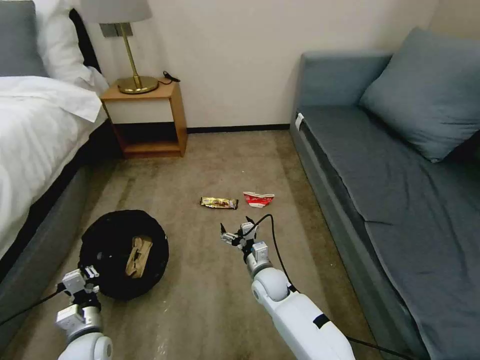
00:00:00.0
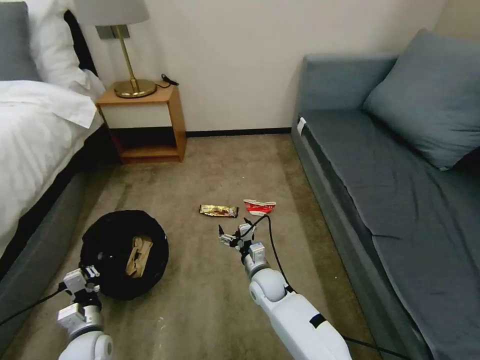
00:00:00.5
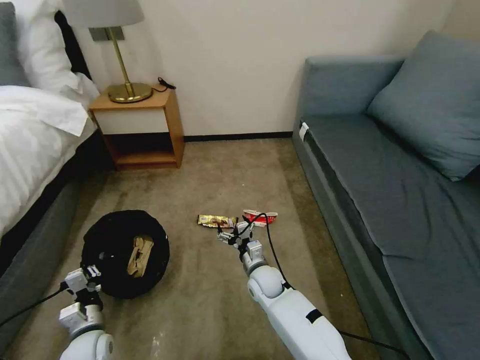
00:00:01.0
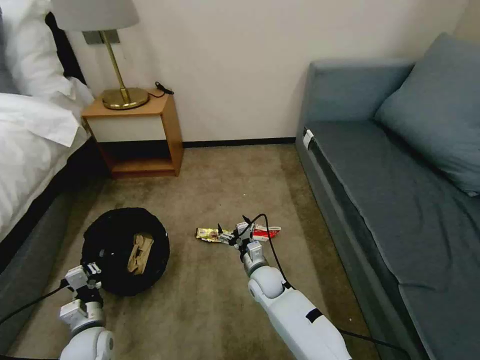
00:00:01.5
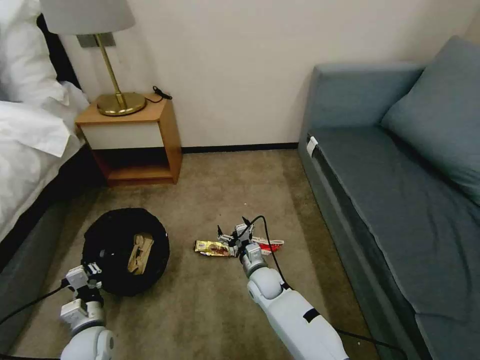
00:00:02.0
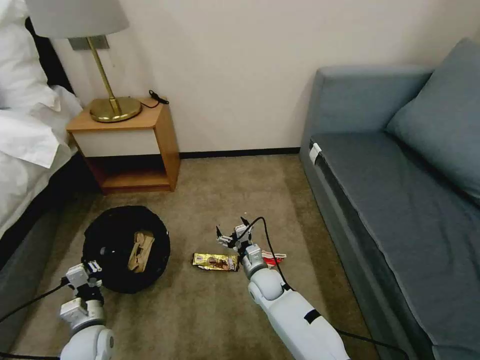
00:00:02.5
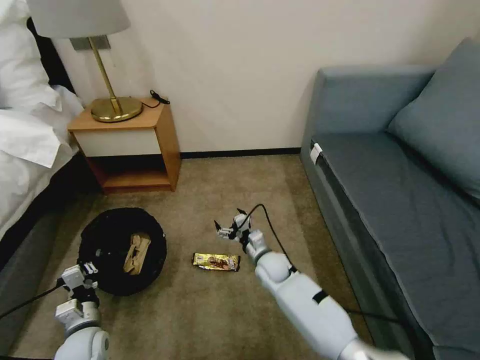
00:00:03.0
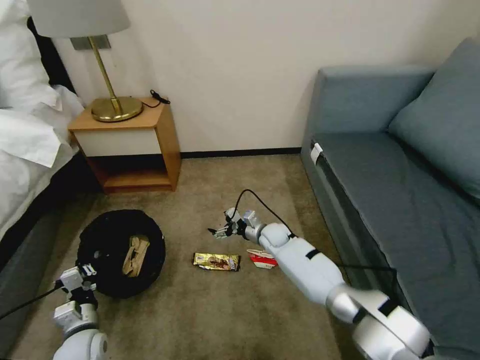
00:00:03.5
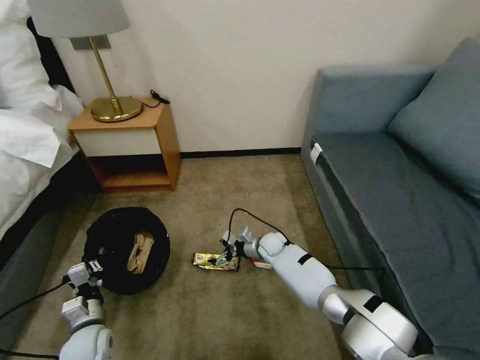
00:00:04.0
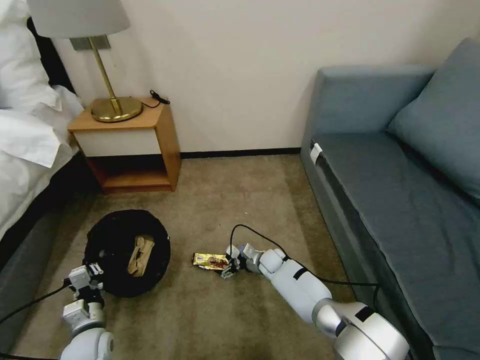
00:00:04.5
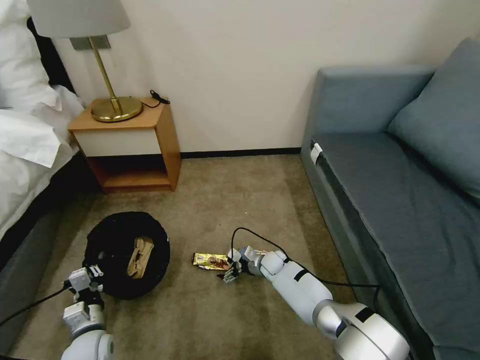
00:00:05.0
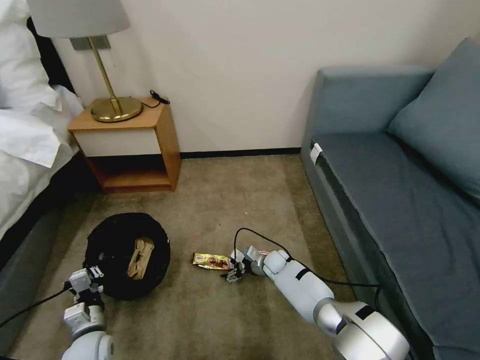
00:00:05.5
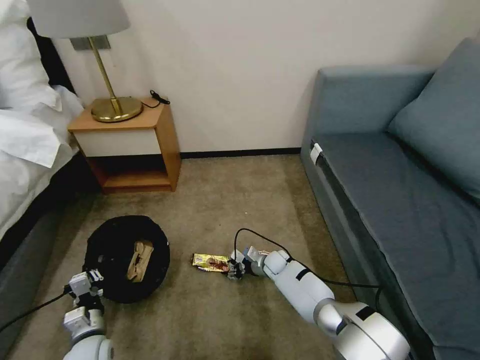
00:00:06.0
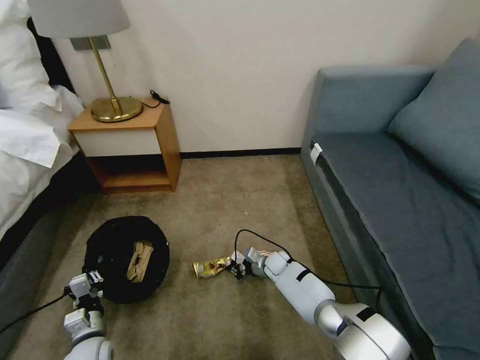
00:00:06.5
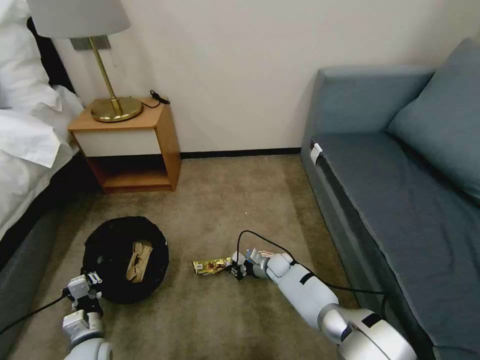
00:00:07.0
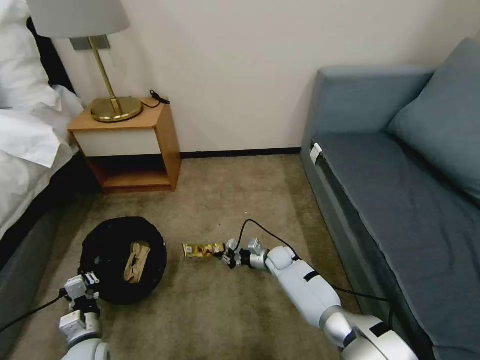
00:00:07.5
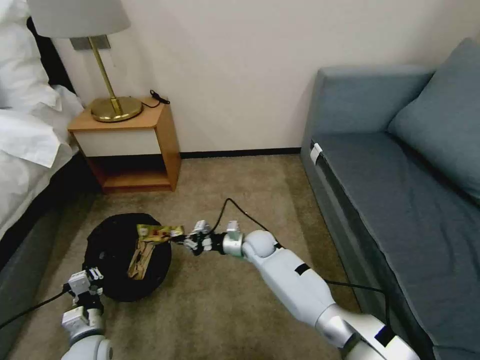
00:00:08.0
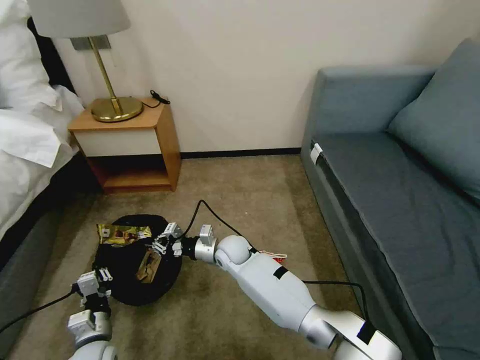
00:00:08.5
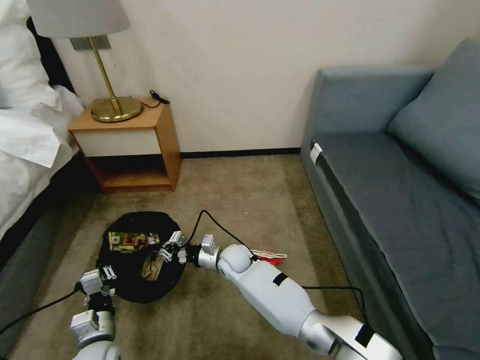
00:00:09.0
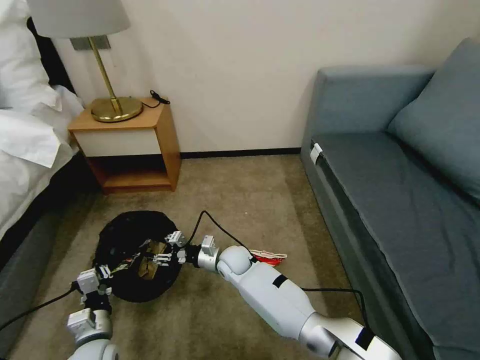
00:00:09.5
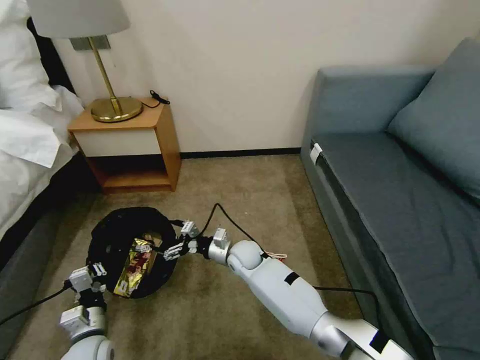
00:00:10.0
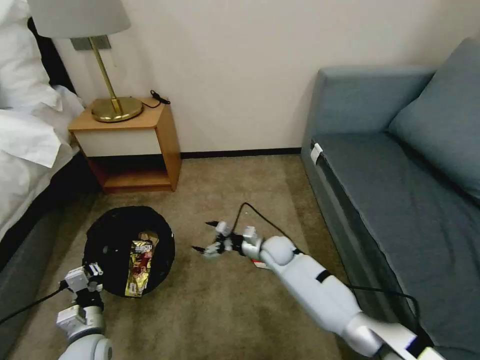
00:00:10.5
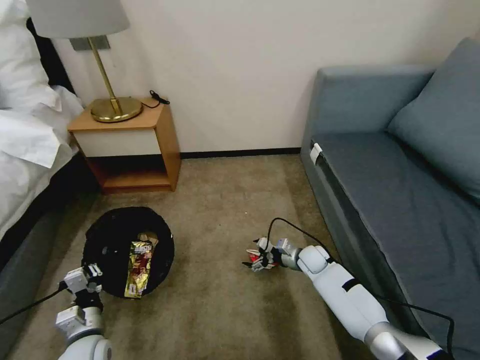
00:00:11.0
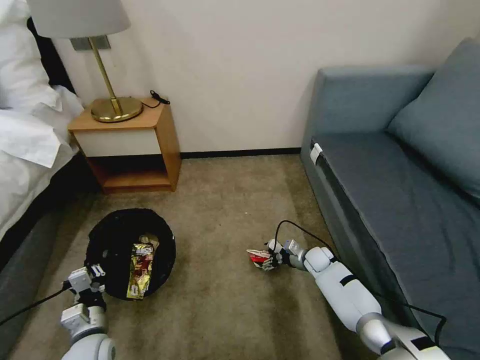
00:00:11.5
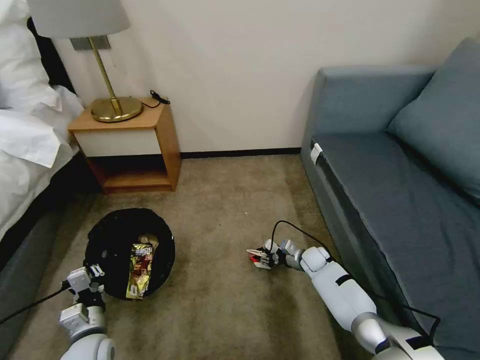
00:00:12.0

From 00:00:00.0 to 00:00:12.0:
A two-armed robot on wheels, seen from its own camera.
Task of the whole recording: Pick up the trash bin, then pick up the garbage on the floor and place it into the trash bin.
From 00:00:02.0 to 00:00:04.0: The right gripper is displaced forward by roughly 10 cm.
From 00:00:04.0 to 00:00:06.0: The right gripper moves downward, roughly 5 cm, and closes up.
From 00:00:06.0 to 00:00:08.0: The right gripper travels upward and to the left by some 15 cm, and closes its fingers.
From 00:00:08.0 to 00:00:10.0: The right gripper opens its fingers.
From 00:00:10.0 to 00:00:12.0: The right gripper goes approximately 25 cm to the right and downward, and closes up.

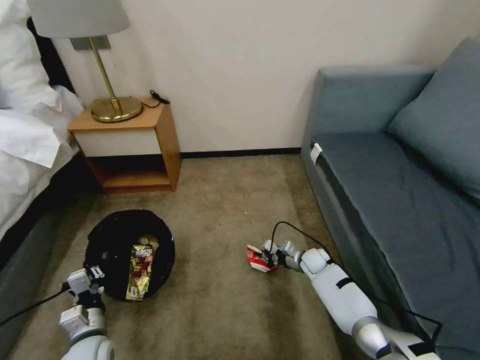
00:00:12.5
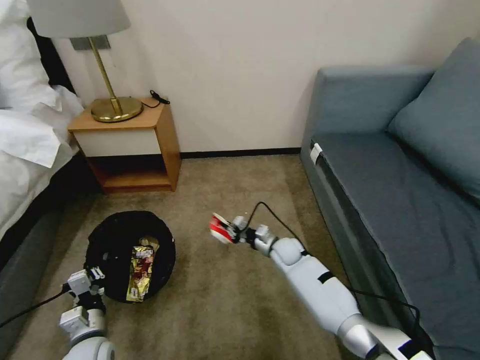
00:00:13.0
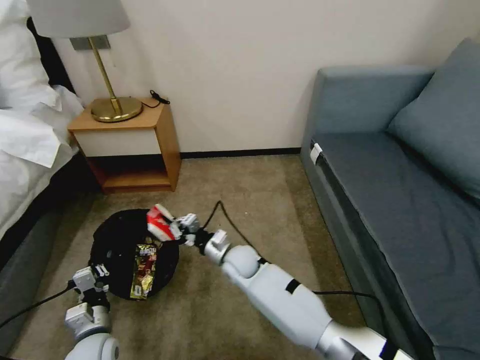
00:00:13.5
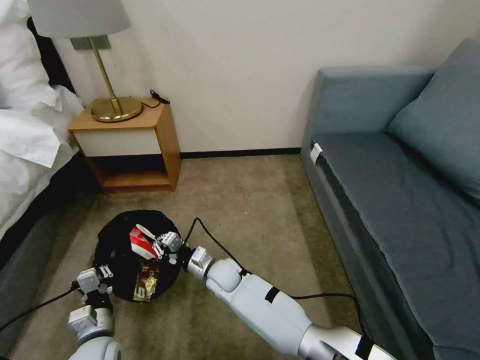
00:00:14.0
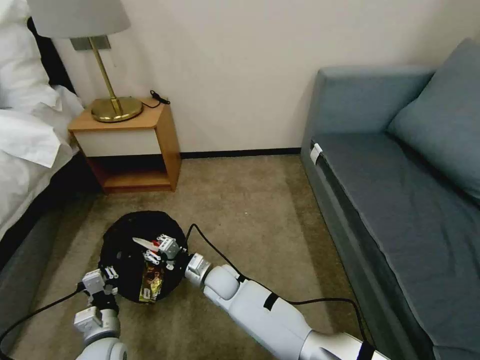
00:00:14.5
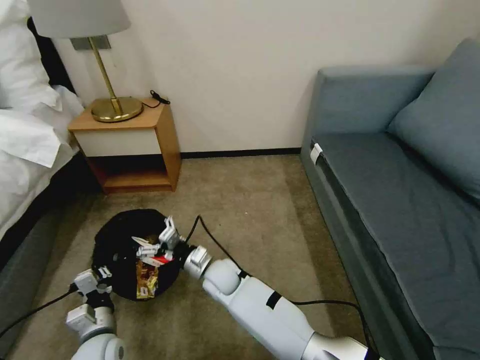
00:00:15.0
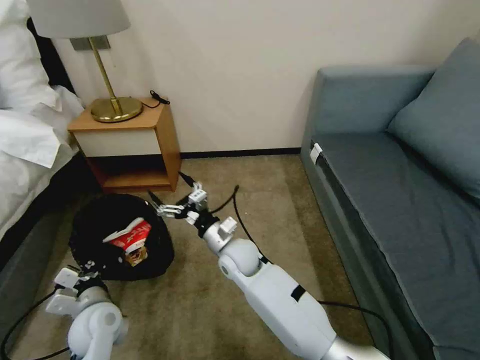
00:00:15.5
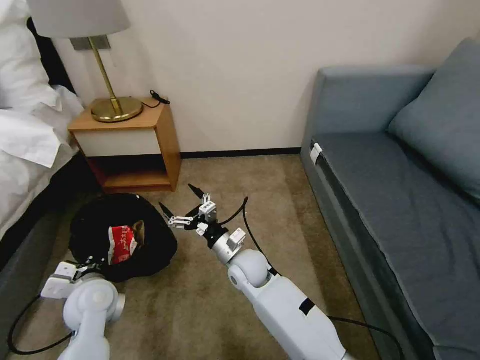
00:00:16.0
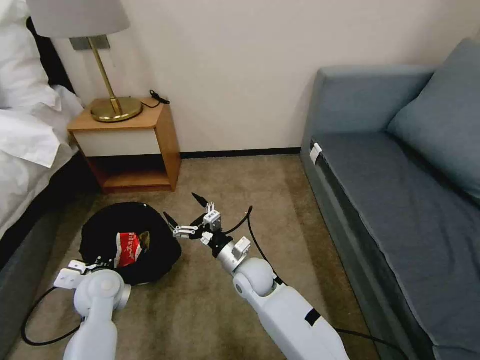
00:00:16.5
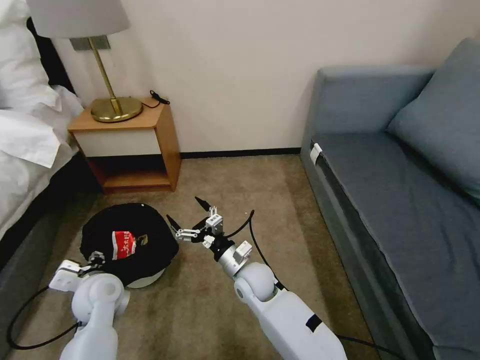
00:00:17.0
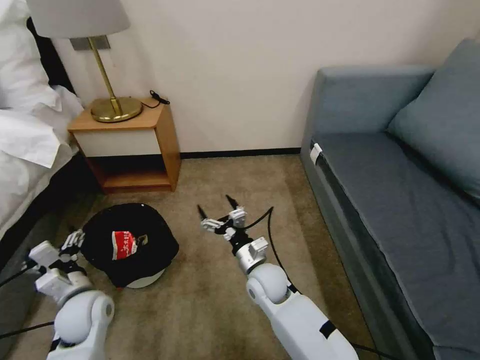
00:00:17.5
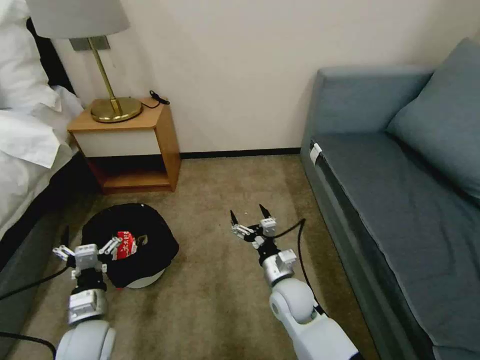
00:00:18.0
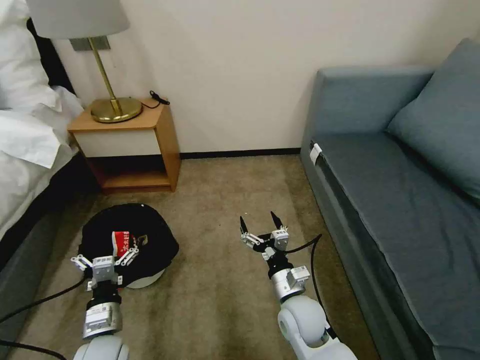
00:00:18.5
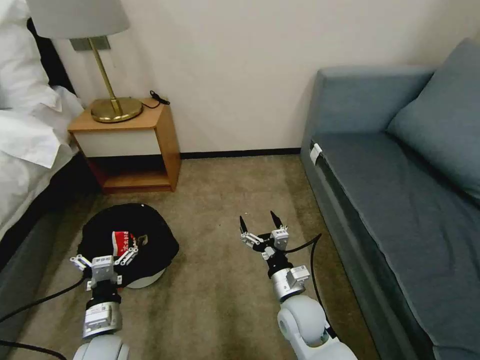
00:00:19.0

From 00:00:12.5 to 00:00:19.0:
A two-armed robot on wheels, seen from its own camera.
Task of the whole recording: Pick up the trash bin, then pick up the garbage on the floor and place it into the trash bin.
From 00:00:12.5 to 00:00:14.5: The right gripper goes roughly 30 cm to the left, and opens its fingers.
From 00:00:14.5 to 00:00:17.0: The right gripper is displaced to the right and upward by roughly 10 cm, and opens. The left gripper heads forward and upward, covering approximately 15 cm, and opens up.
From 00:00:17.0 to 00:00:19.0: The left gripper travels backward by some 10 cm, and opens up. Meanwhile the right gripper moves to the right and backward, approximately 15 cm.

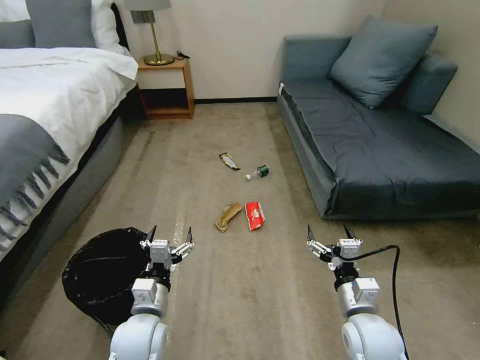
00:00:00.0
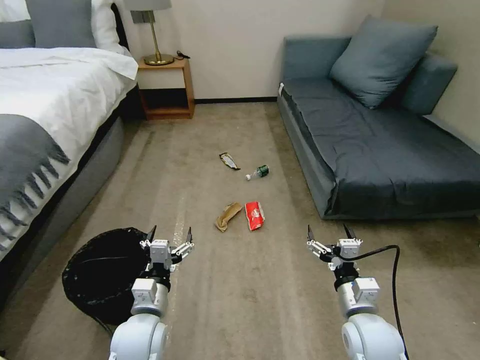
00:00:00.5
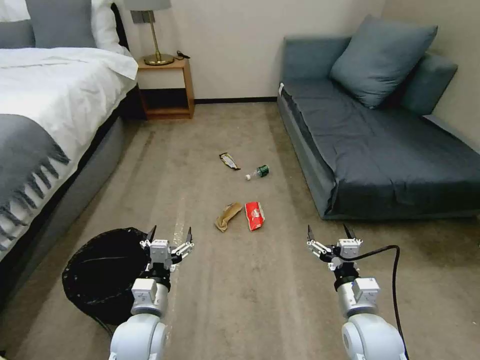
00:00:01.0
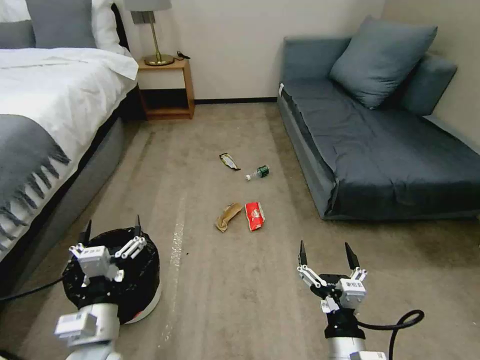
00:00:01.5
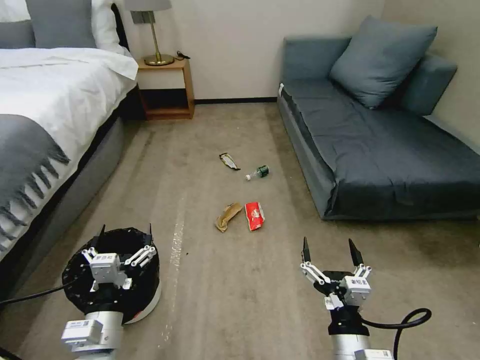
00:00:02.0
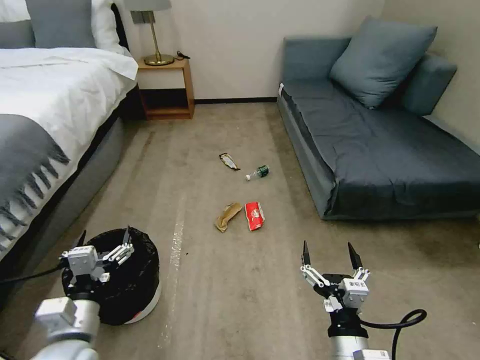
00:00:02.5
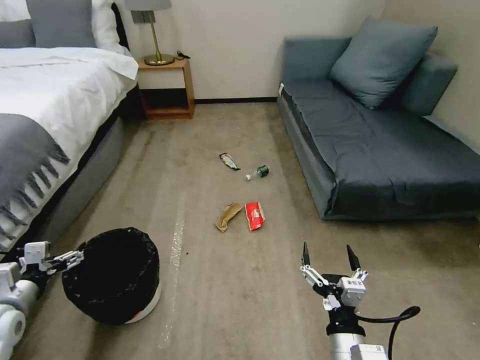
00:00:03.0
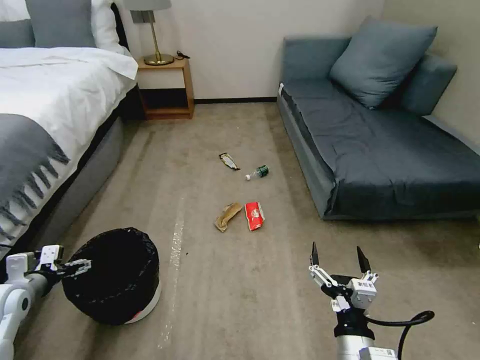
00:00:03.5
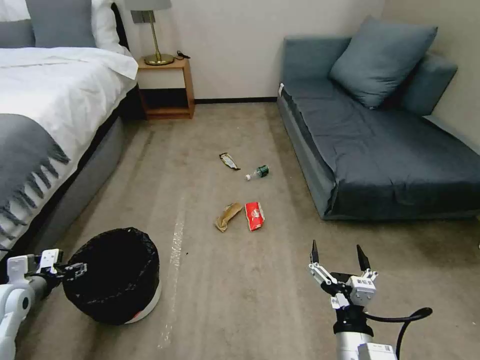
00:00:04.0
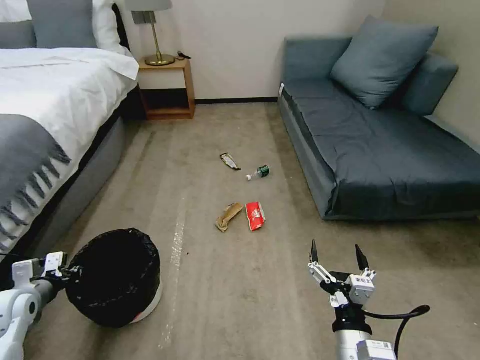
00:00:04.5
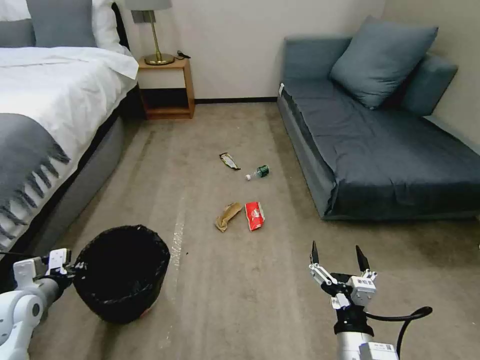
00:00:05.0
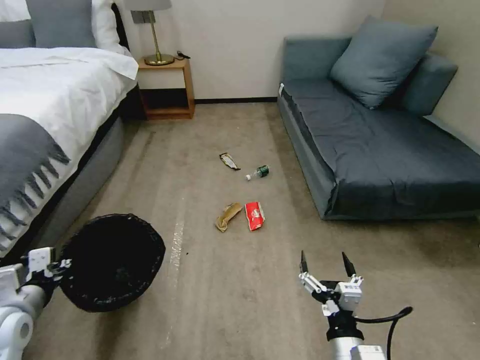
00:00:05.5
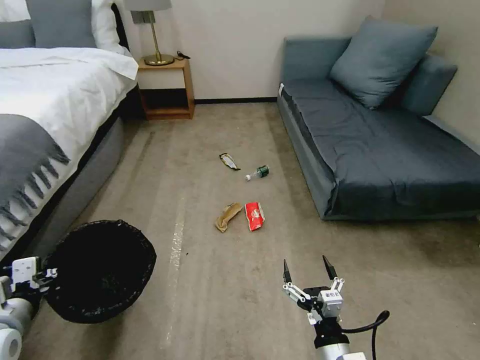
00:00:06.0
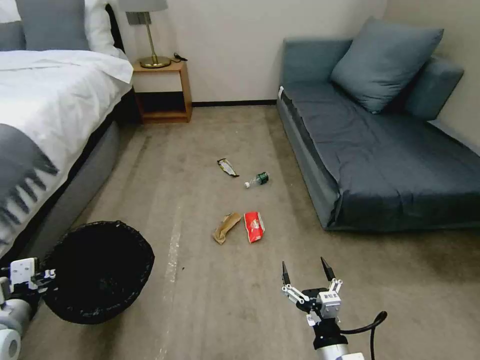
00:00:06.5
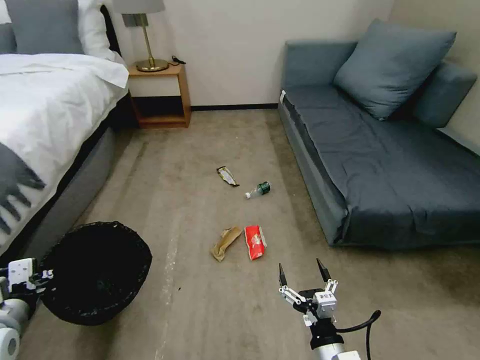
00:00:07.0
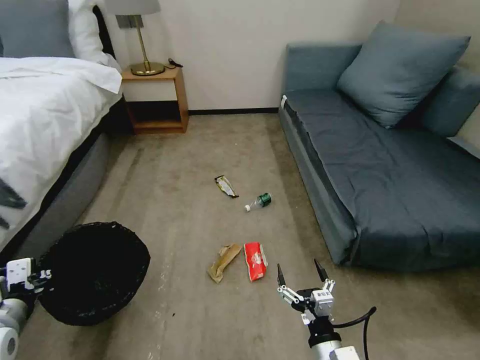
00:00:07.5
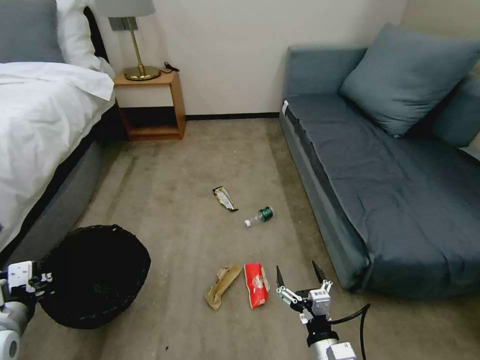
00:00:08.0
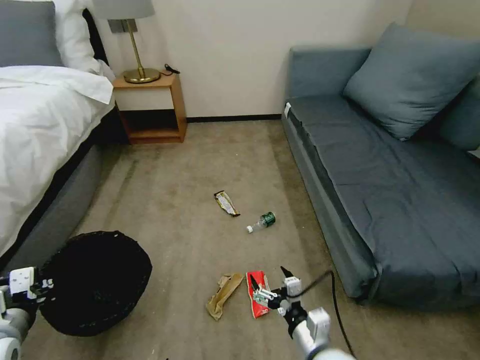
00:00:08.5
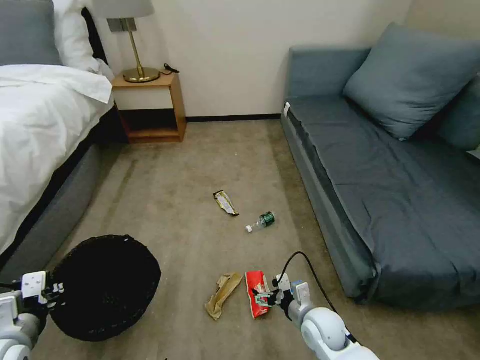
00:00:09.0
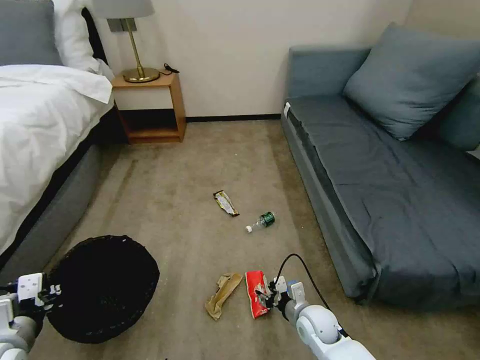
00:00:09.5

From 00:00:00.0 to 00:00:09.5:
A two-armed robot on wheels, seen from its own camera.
Task of the whole recording: Pick up the trash bin, then pick up the garbage on the floor and place it into the trash bin.
From 00:00:02.0 to 00:00:04.0: The left gripper heads to the left and forward, covering some 30 cm.
From 00:00:04.0 to 00:00:05.5: The left gripper goes roughly 10 cm to the right, backward and upward, and closes up.
From 00:00:07.5 to 00:00:09.5: The right gripper goes about 20 cm forward and downward, and closes.
